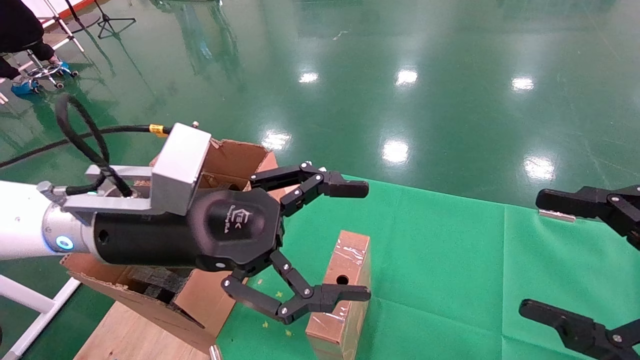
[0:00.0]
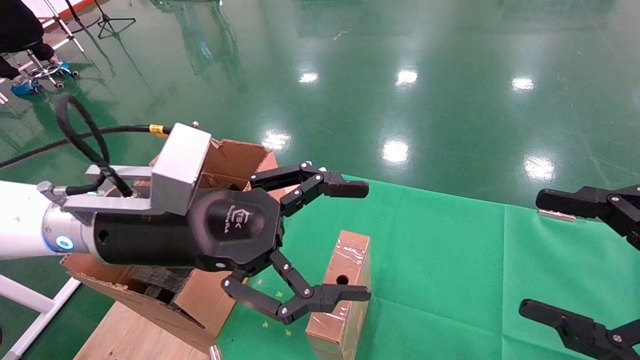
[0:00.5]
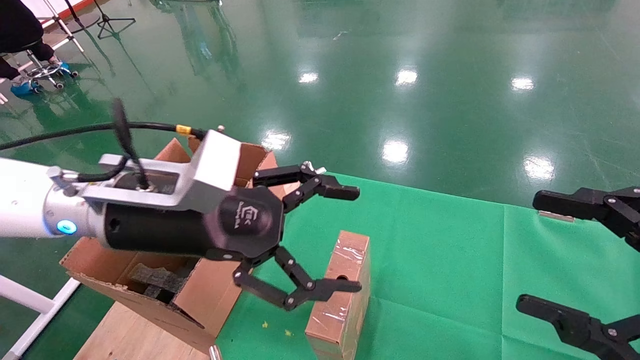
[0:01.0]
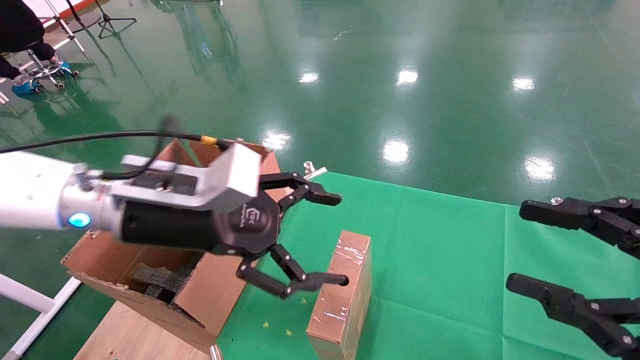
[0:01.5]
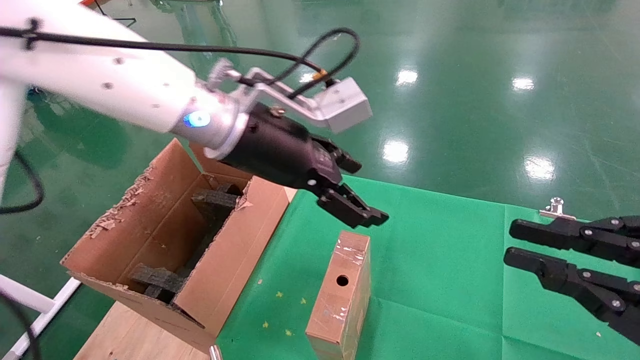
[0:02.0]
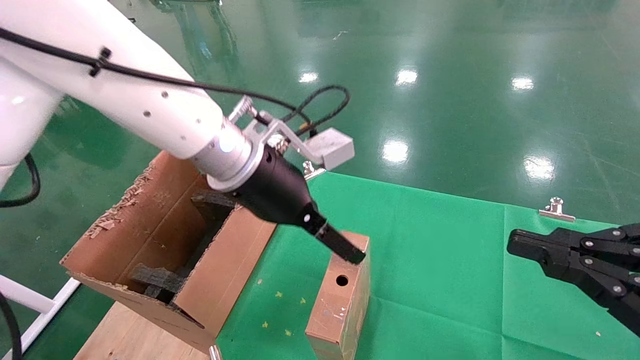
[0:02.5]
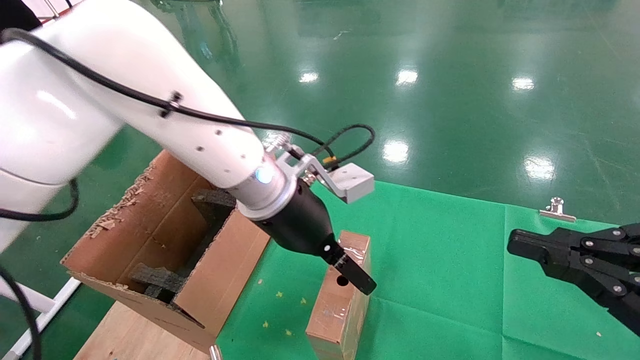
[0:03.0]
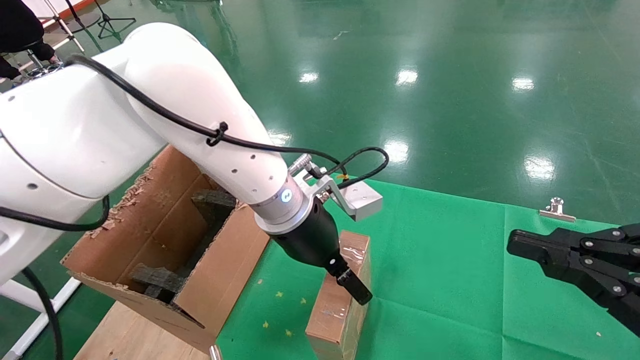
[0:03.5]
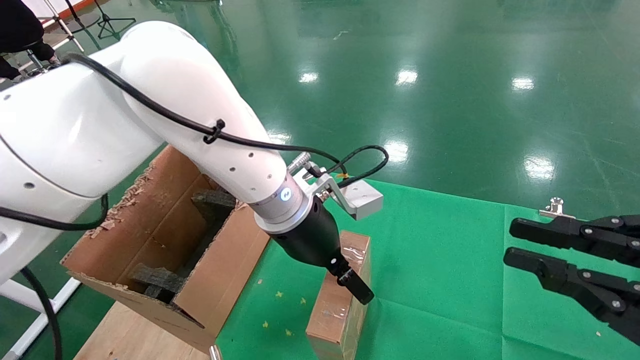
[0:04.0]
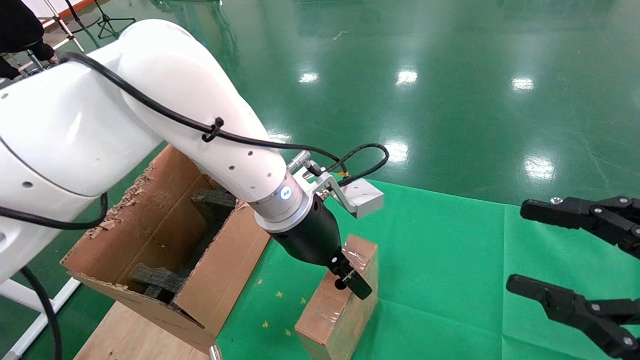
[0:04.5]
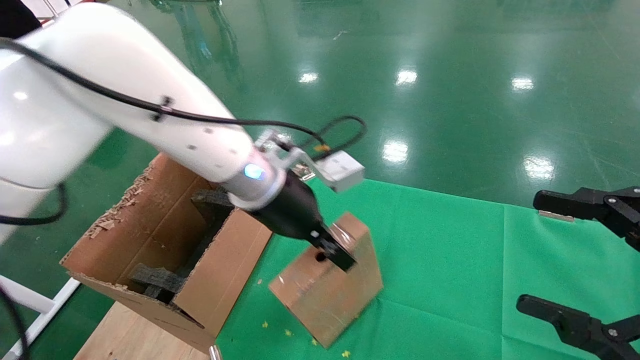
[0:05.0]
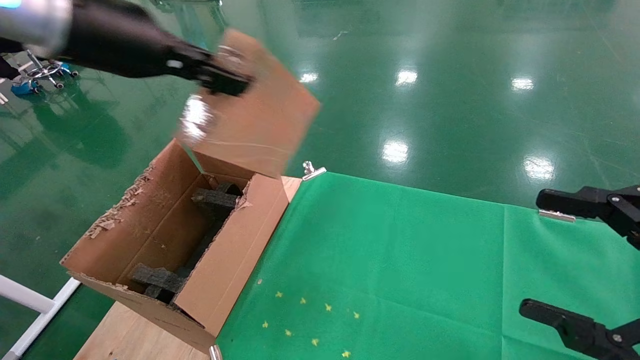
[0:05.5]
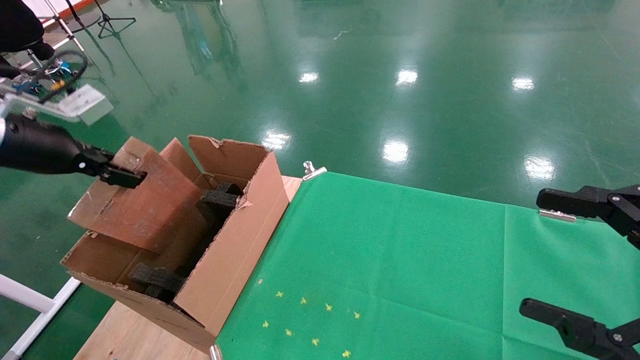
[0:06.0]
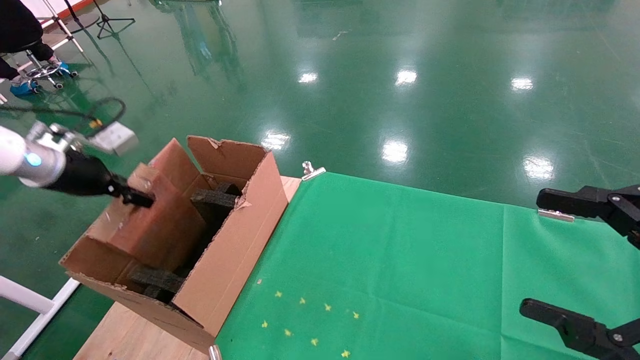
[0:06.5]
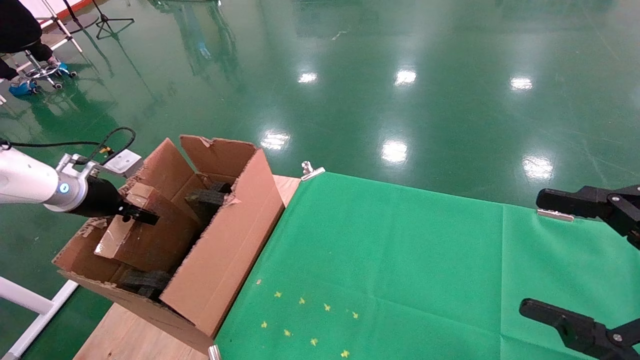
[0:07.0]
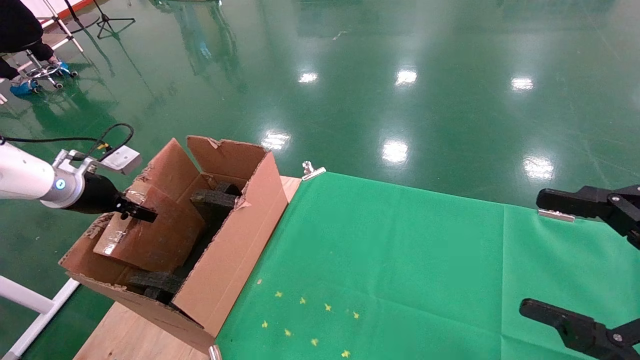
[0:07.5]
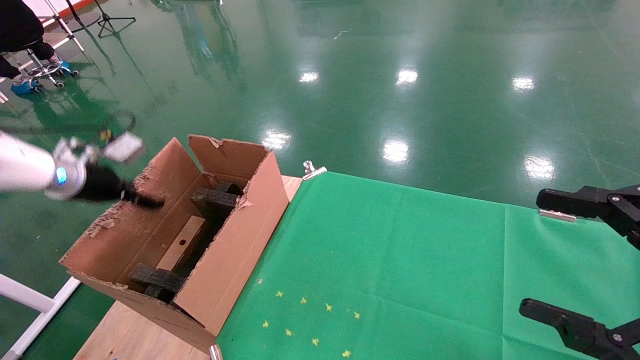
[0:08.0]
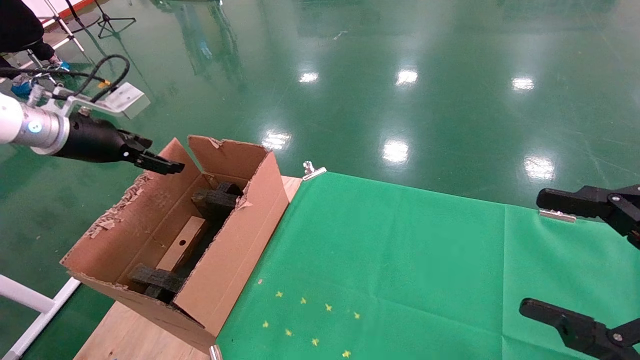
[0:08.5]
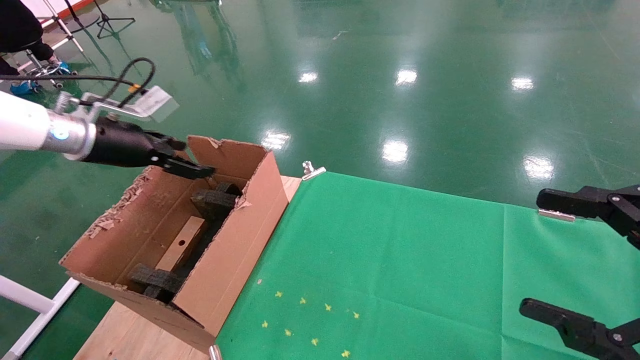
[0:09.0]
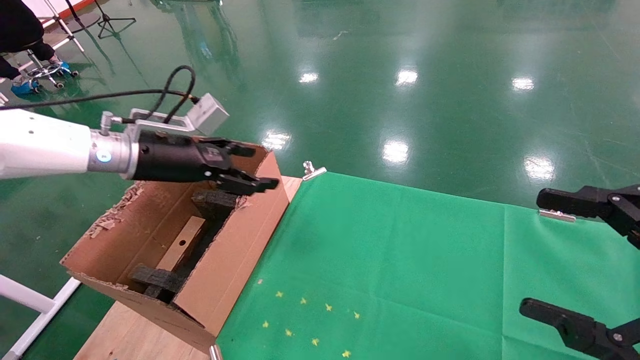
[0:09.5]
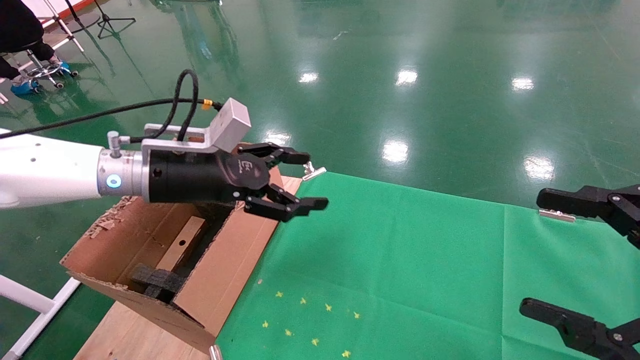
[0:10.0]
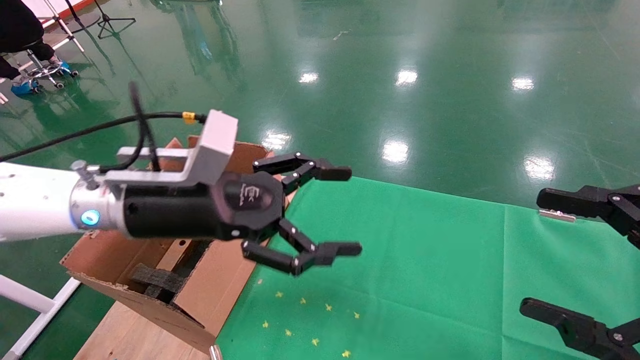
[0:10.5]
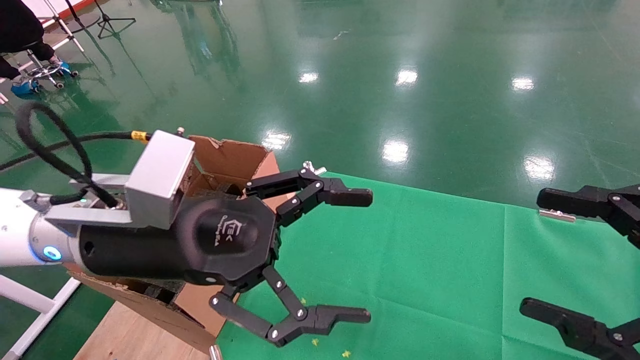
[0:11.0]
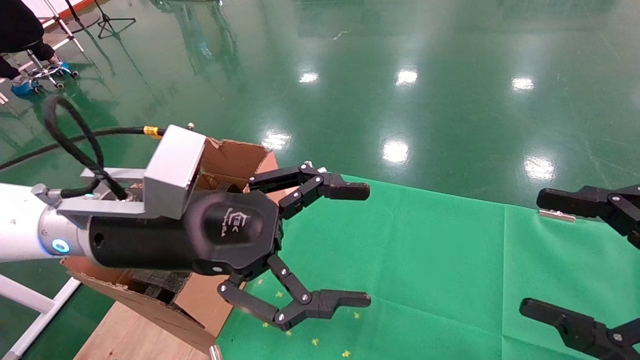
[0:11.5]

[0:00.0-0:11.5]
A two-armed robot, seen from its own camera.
Task of the whole recording: using a robotic arm to pick up a cardboard box and palace it the carton.
Step, 0:01.5 to 0:04.5: Pick up the mouse and the power cord paper box.
Step, 0:05.0 to 0:07.5: Place the mouse and the power cord paper box into the container.
0:00.0 to 0:02.0: The left gripper goes some 15 cm forward, upward and to the right. Meanwhile the right gripper closes up.
0:02.0 to 0:04.0: The left gripper heads downward and to the right, covering some 10 cm.
0:04.0 to 0:06.0: The right gripper opens its fingers. The left gripper goes roughly 35 cm to the left, and closes.
0:06.0 to 0:07.5: The left gripper goes roughly 15 cm downward and forward.
0:07.5 to 0:09.5: The left gripper is displaced to the right by about 20 cm, and opens up.
0:09.5 to 0:11.5: The left gripper travels backward and to the right by roughly 20 cm.

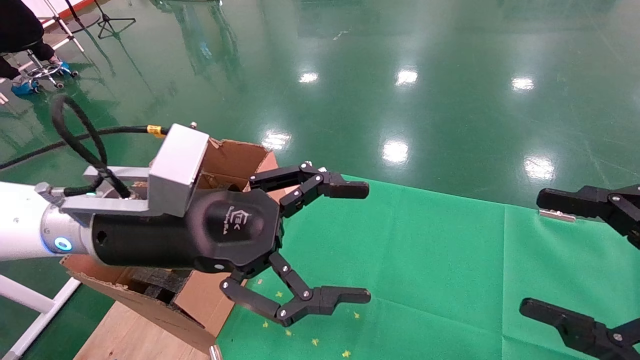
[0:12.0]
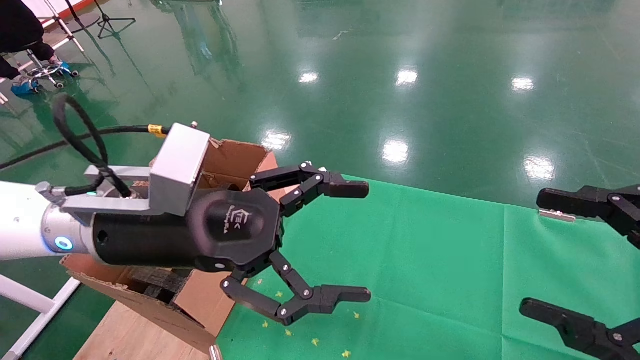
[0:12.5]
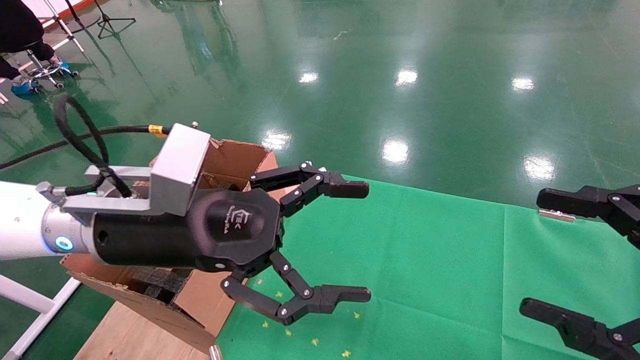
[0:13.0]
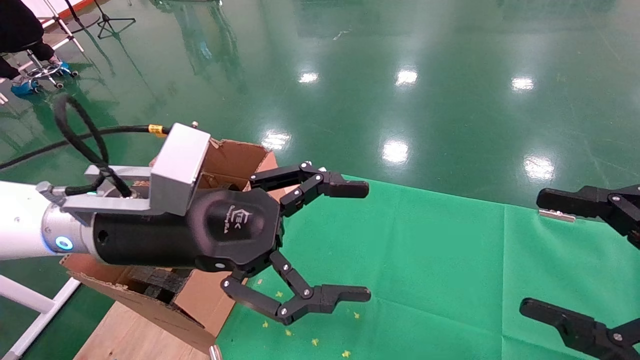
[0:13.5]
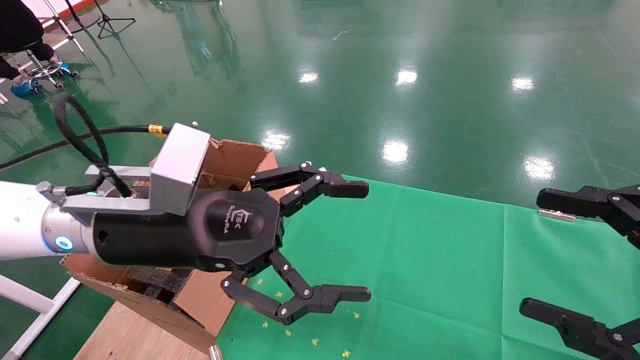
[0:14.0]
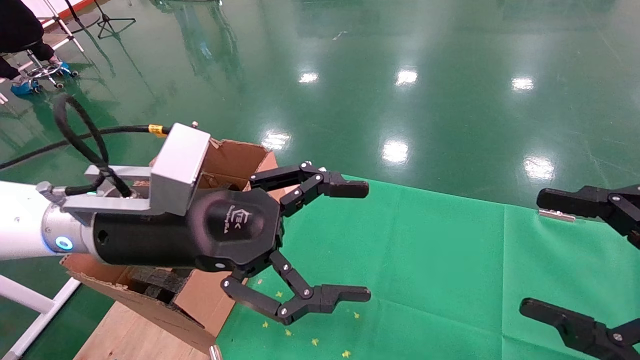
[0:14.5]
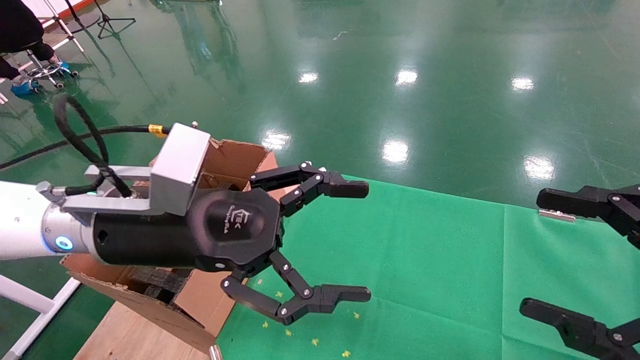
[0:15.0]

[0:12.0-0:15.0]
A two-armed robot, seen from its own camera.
Task of the whole recording: using a robotic arm to pick up a cardboard box and palace it the carton.
0:12.0 to 0:15.0: Neither gripper changes place.

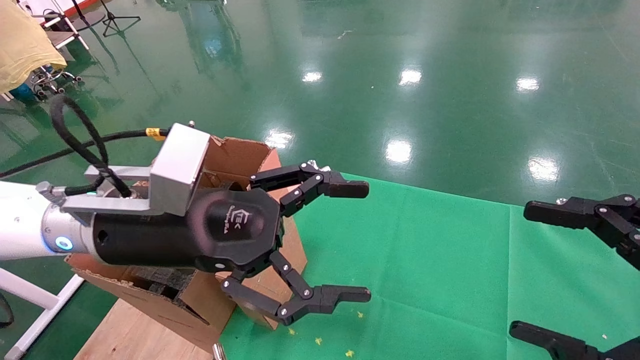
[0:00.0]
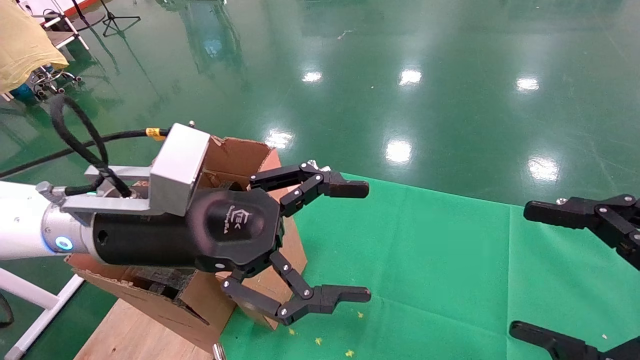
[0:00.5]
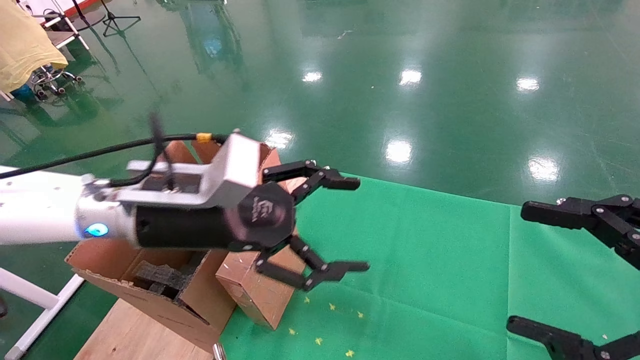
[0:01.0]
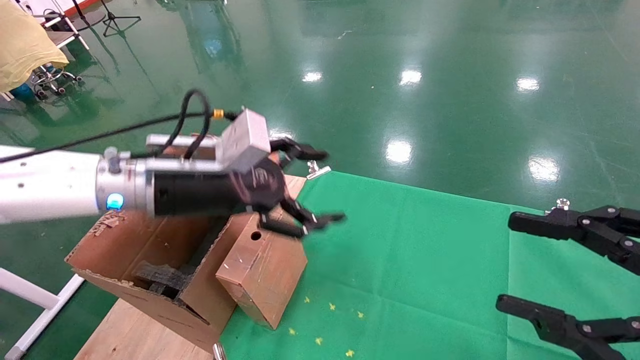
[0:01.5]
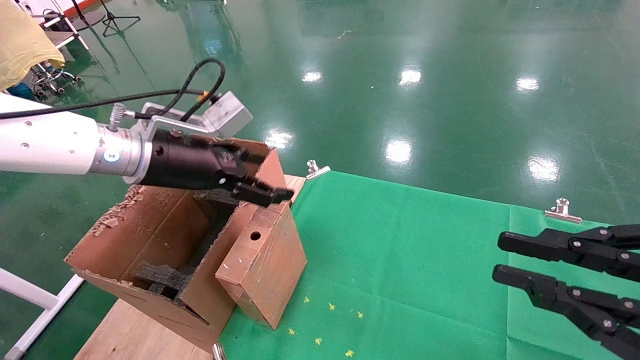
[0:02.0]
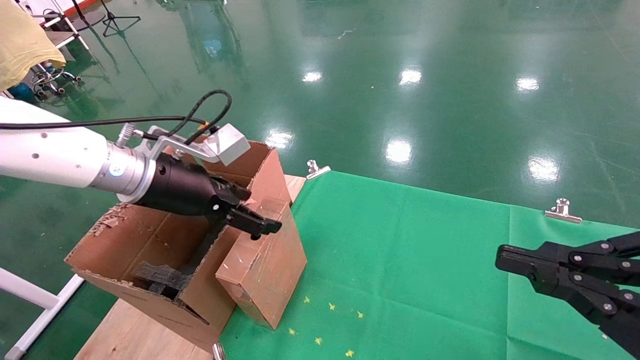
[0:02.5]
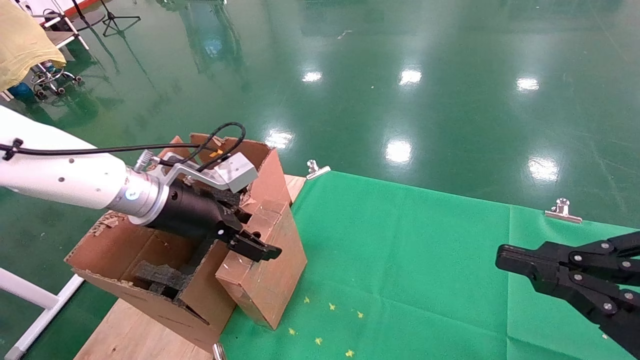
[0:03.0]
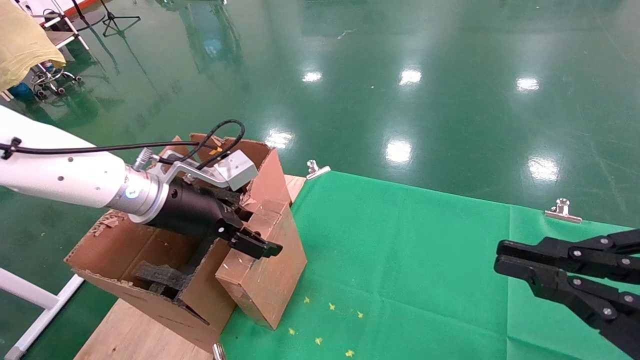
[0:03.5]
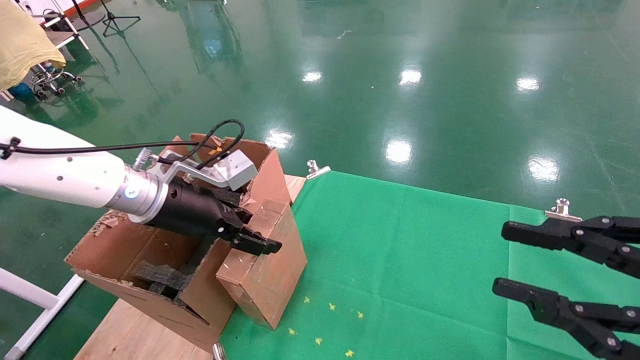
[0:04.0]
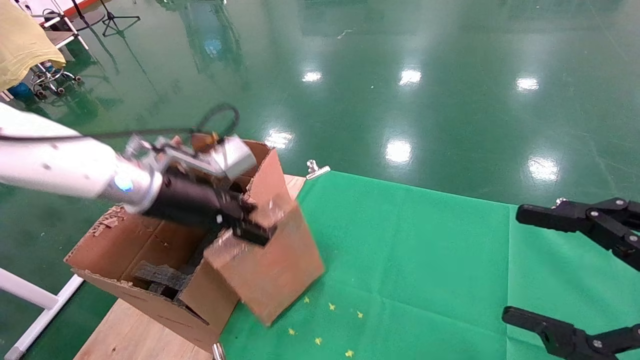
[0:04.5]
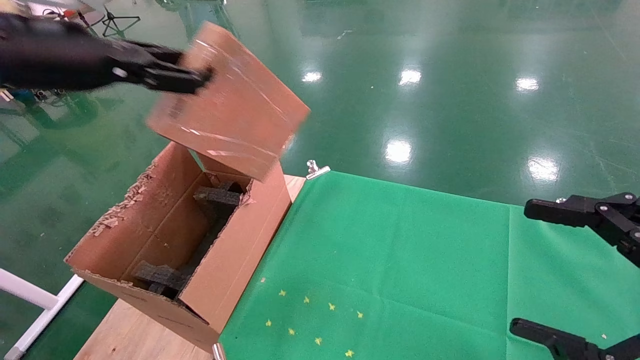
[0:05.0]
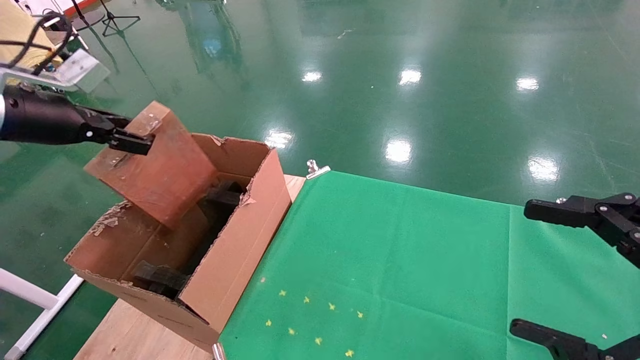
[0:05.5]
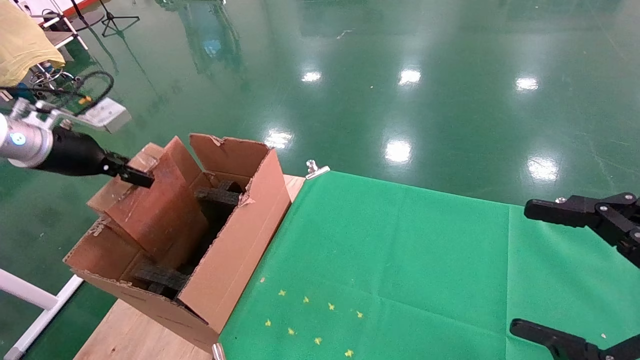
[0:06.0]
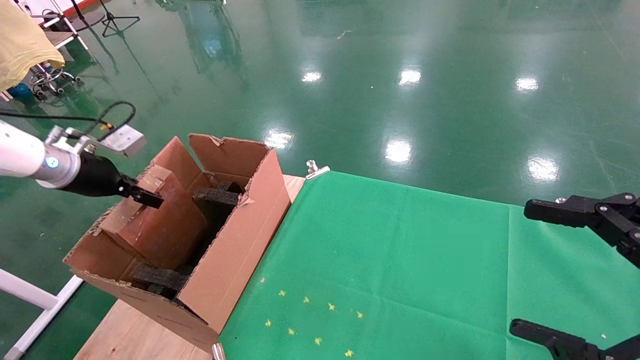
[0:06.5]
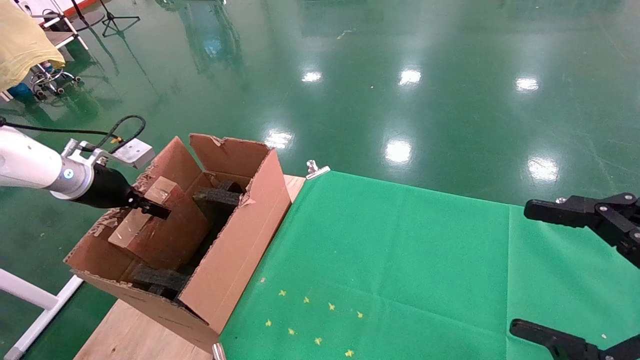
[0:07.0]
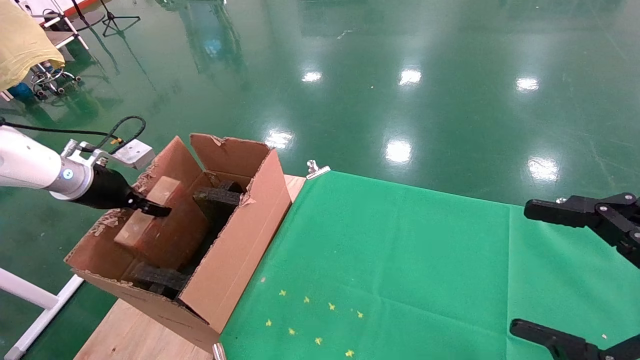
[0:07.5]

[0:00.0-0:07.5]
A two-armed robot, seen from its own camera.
Task of the whole recording: using a robotic arm to pick up a cardboard box and palace it the carton.
Step, 0:01.0 to 0:04.0: Pick up the mouse and the power cord paper box.
0:00.0 to 0:02.0: The right gripper closes; the left gripper goes roughly 10 cm forward and to the left.
0:02.0 to 0:04.0: The grippers stay close to where they were, moving slightly.
0:04.0 to 0:05.5: The left gripper heads to the left and upward, covering roughly 25 cm, and closes its fingers; the right gripper opens up.
0:05.5 to 0:07.5: The left gripper shifts some 15 cm downward and forward.
